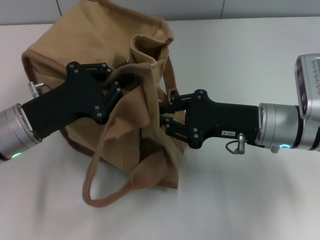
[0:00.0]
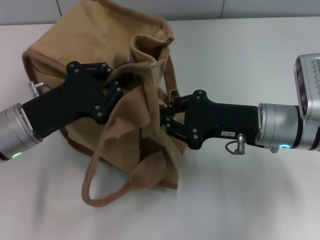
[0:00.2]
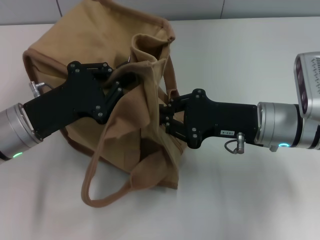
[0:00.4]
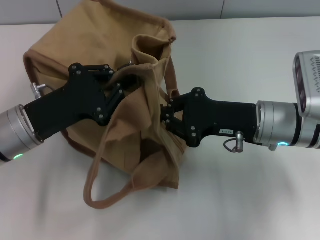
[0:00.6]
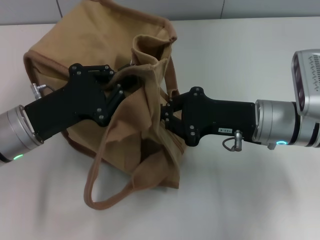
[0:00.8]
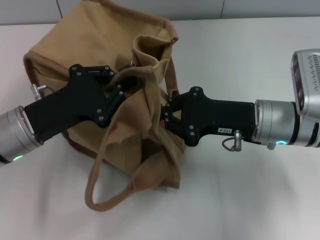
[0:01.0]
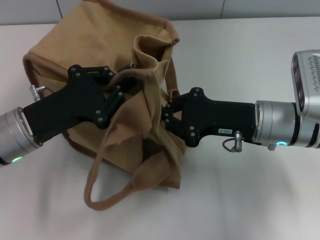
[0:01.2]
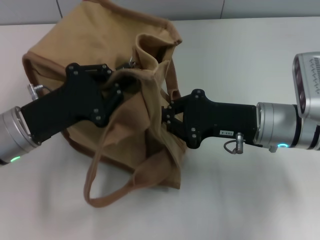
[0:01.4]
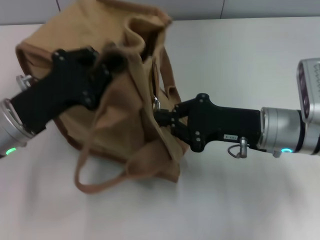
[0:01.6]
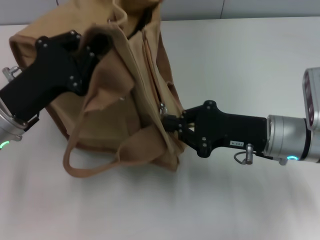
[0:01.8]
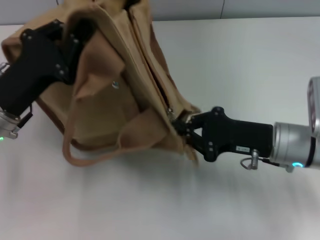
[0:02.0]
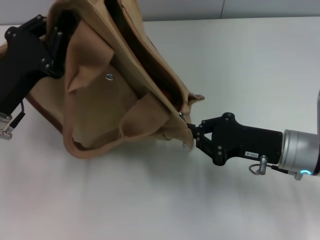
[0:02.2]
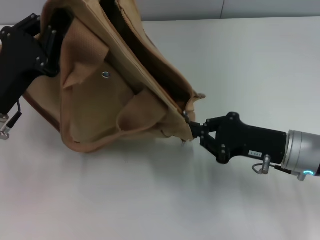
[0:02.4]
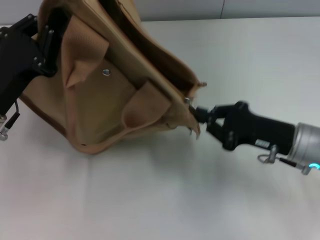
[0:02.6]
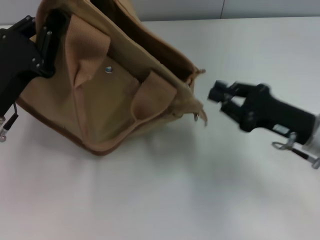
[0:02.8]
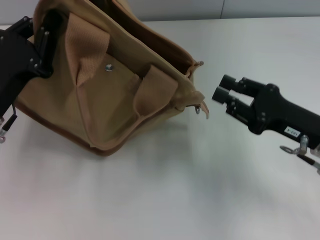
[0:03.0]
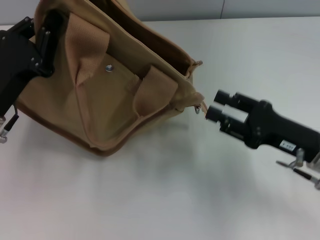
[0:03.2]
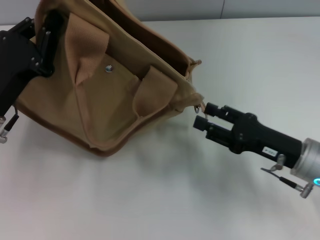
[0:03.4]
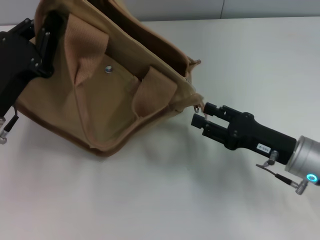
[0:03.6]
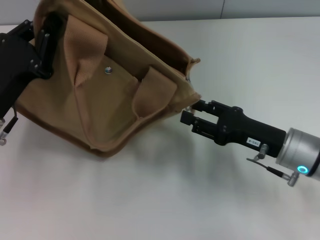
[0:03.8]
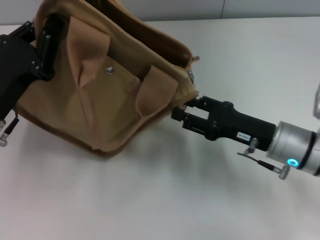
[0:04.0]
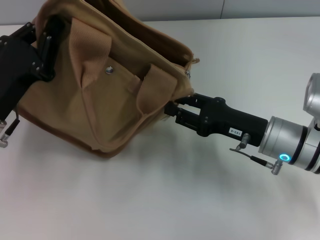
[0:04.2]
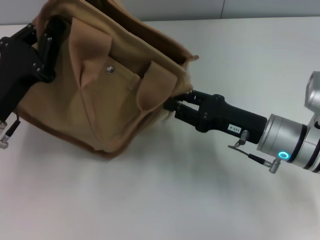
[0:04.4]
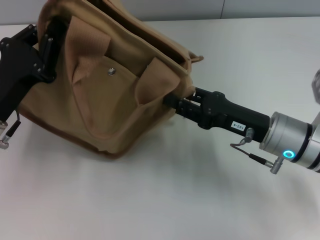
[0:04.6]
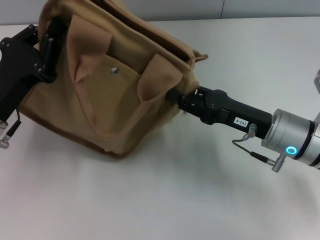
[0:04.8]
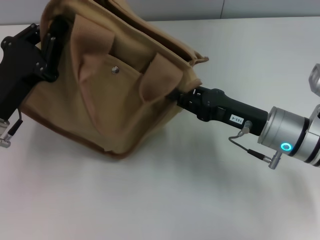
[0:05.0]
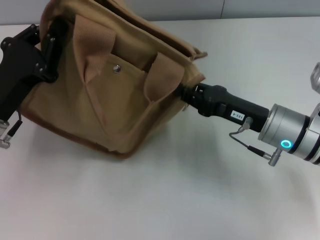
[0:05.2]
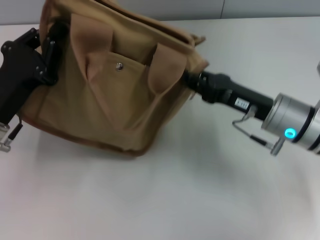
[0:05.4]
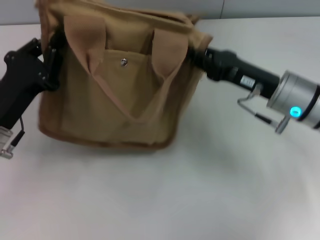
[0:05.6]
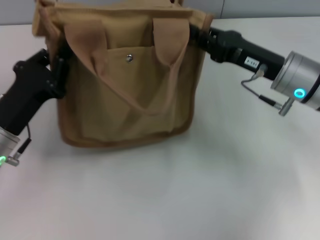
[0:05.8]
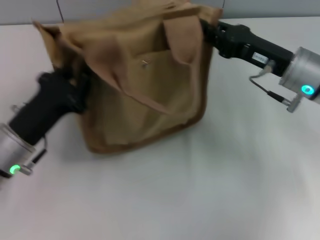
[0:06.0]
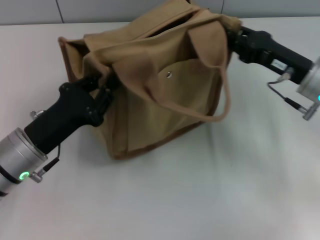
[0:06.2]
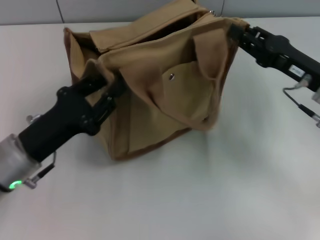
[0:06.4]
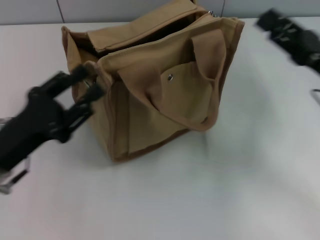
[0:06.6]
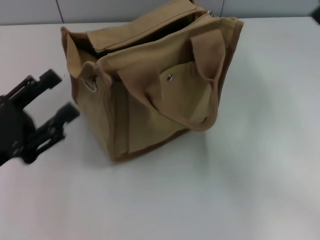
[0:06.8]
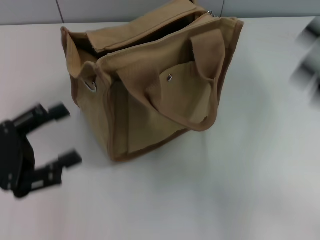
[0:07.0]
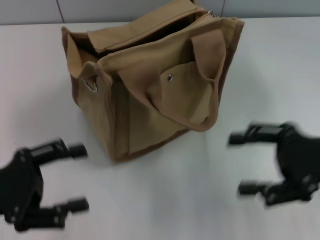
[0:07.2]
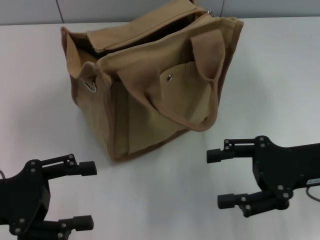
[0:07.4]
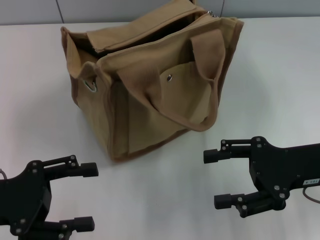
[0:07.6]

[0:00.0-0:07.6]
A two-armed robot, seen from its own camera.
Step, 0:00.0 to 0:02.8: Pull open the zipper with your right hand.
Step, 0:03.0 to 0:06.6: Grab the bag with your left hand.
0:01.6 to 0:03.0: The right gripper goes about 5 cm to the right.
0:03.0 to 0:04.6: The right gripper shifts roughly 5 cm to the left.
0:04.6 to 0:06.0: The right gripper is displaced forward by roughly 5 cm, and closes its fingers.
0:06.0 to 0:07.6: The left gripper moves to the left and backward, about 10 cm, and opens its fingers. Meanwhile the right gripper heads backward, covering approximately 10 cm, and opens.

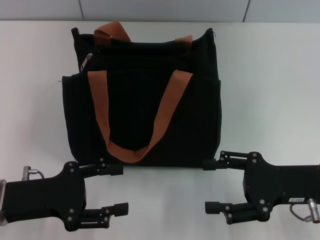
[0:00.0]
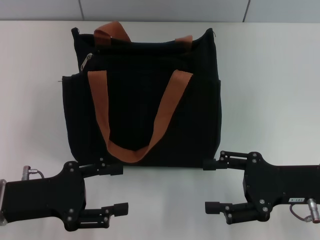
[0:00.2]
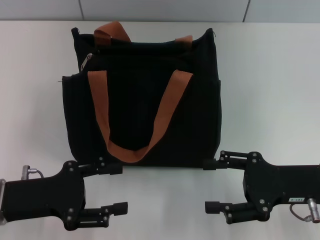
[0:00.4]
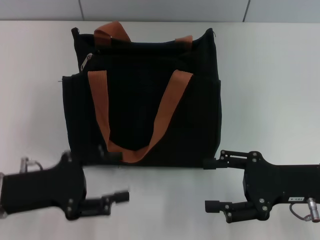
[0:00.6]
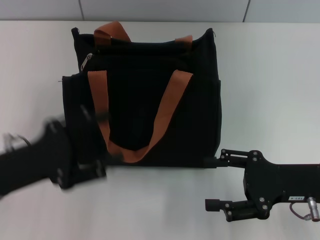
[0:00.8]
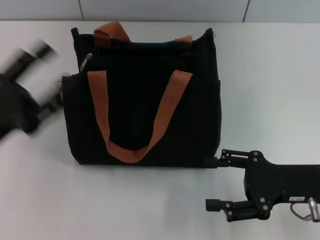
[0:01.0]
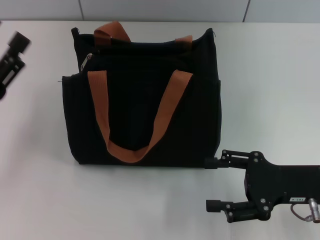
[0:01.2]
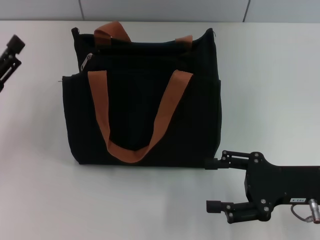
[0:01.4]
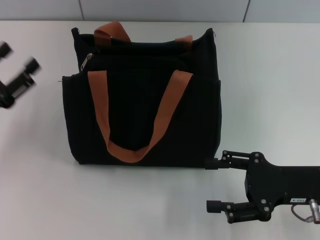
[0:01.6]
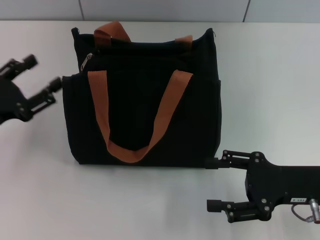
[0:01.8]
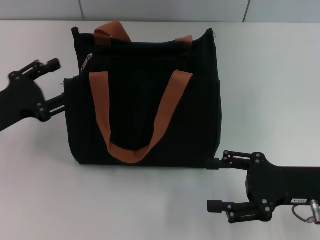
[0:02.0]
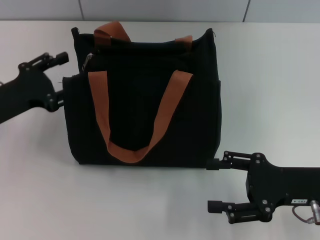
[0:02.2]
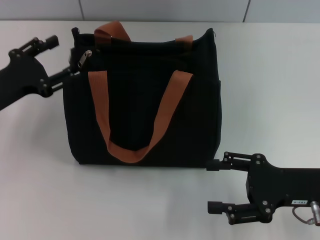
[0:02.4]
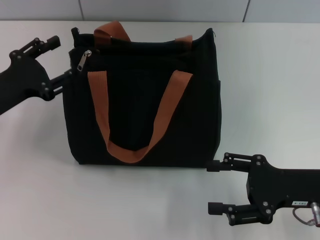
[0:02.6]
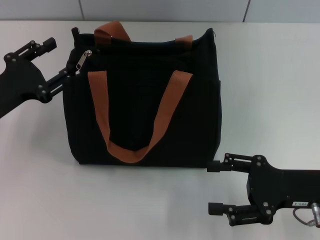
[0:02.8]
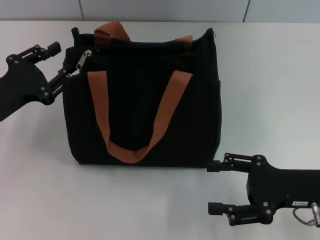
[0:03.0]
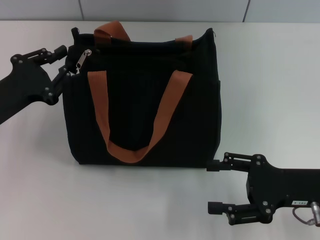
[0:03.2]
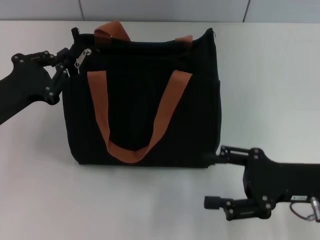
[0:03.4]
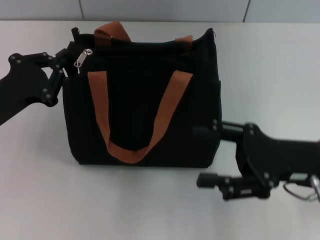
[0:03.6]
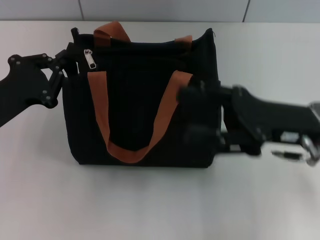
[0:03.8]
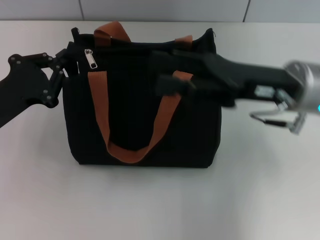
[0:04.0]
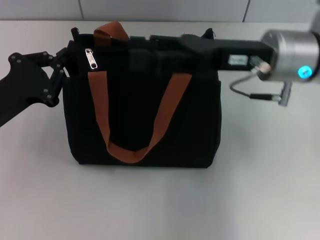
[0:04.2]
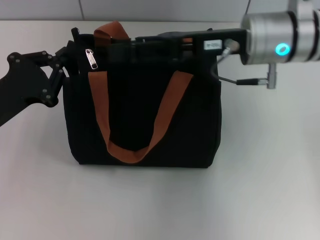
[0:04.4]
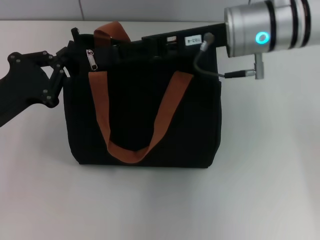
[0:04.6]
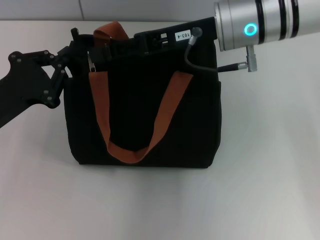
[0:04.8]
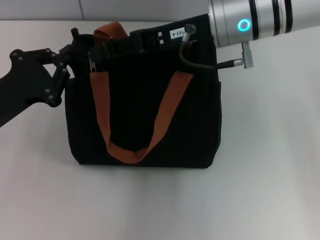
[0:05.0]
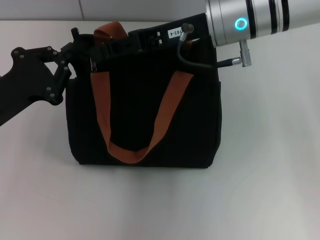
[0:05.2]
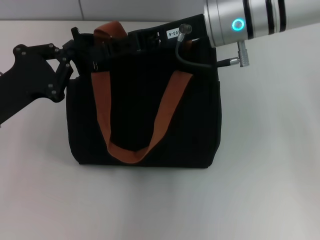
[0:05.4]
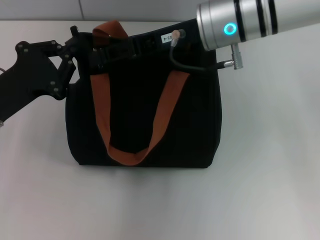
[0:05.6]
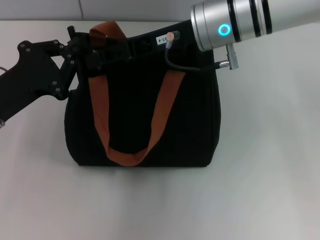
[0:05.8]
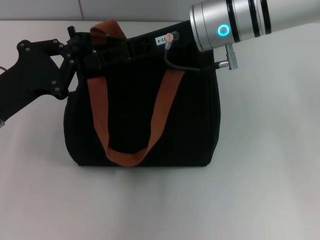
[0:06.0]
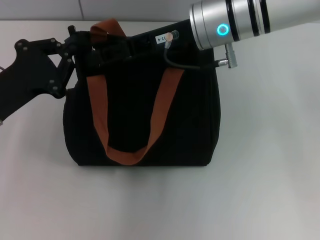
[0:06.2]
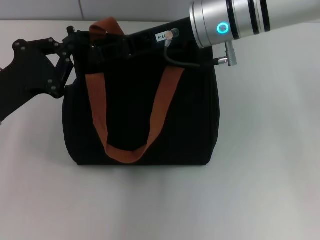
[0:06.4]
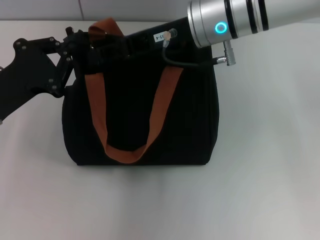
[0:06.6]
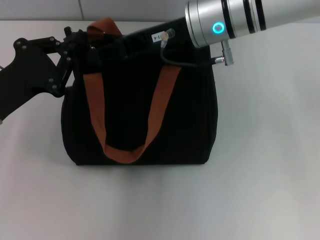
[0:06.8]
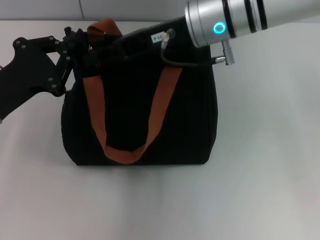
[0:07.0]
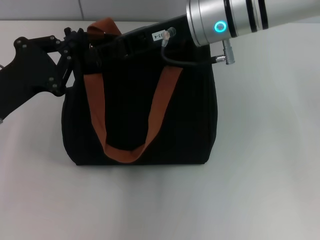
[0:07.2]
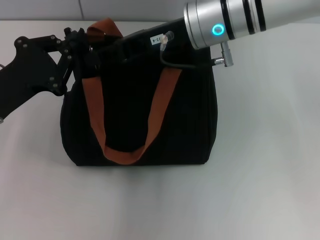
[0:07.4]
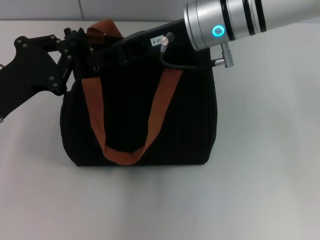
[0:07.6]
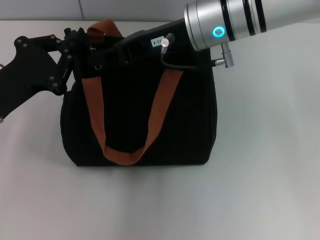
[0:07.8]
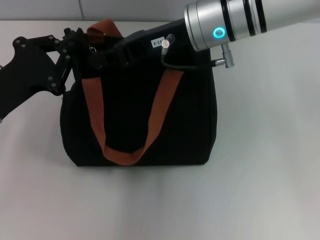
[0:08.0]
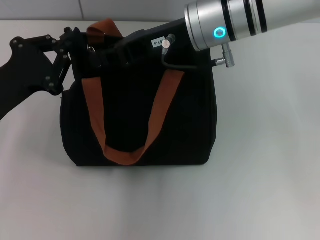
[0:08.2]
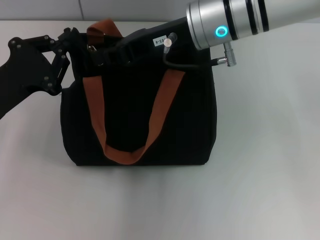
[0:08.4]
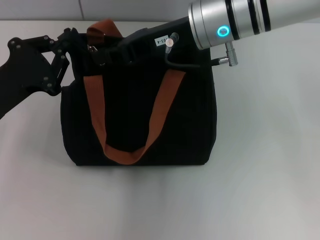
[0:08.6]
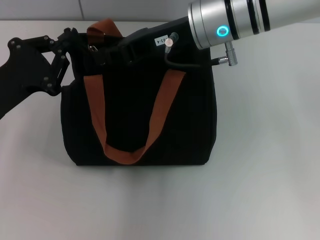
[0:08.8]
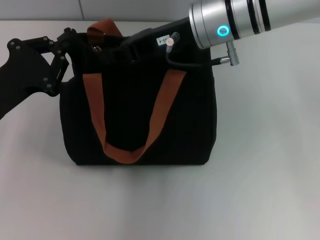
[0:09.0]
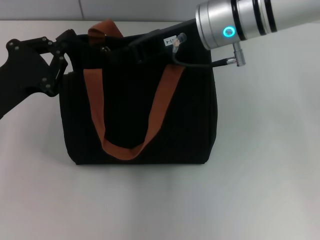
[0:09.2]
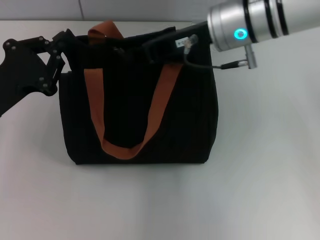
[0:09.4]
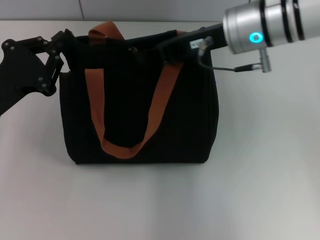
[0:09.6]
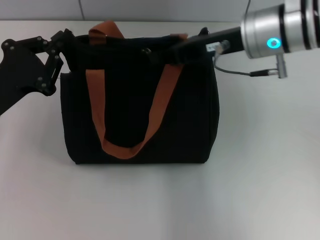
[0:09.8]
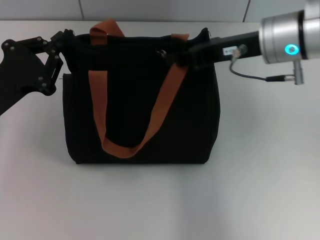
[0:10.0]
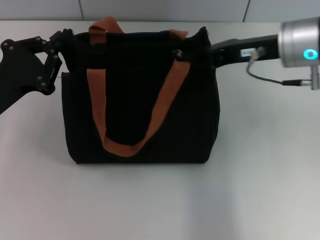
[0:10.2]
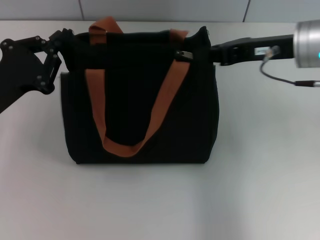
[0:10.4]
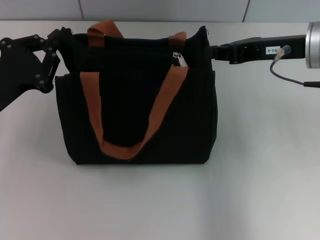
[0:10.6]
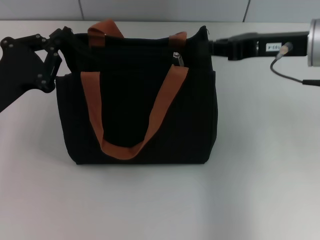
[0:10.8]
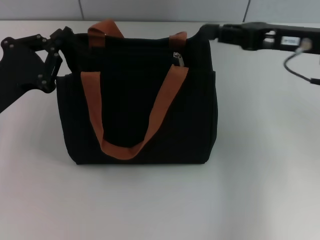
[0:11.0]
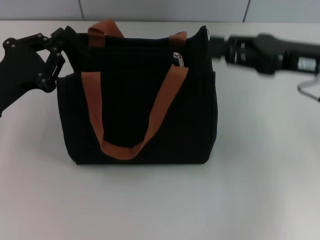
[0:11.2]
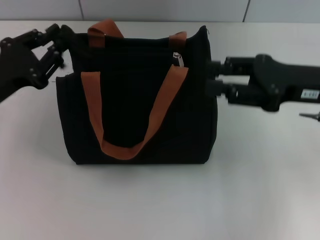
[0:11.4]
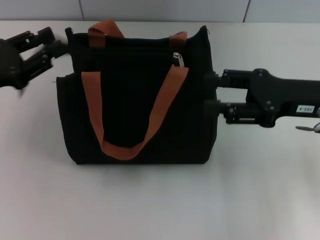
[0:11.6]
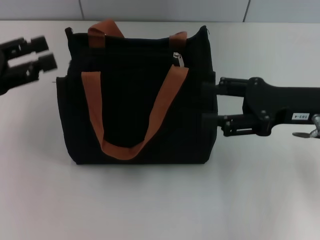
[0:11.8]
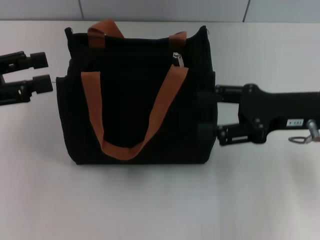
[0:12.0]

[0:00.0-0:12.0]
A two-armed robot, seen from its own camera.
Step, 0:00.0 to 0:10.4: Pull up the zipper with your right hand.
Step, 0:10.6 to 0:11.6: Grab the zipper with your left hand.
0:00.0 to 0:01.6: The left gripper heads to the left, covering some 5 cm.
0:03.0 to 0:04.4: The right gripper goes some 20 cm forward, upward and to the left. The left gripper closes its fingers.
0:04.4 to 0:06.0: The right gripper moves to the left, some 5 cm.
0:06.0 to 0:07.6: The grippers make only small movements.
0:07.6 to 0:09.0: Both grippers stay about where they are.
0:09.0 to 0:10.4: The right gripper moves to the right, some 15 cm.
0:10.4 to 0:12.0: The left gripper goes approximately 10 cm upward and to the left, and opens its fingers. Meanwhile the right gripper is displaced backward and downward by about 10 cm, and opens.

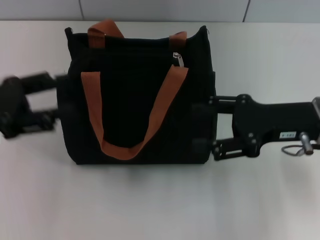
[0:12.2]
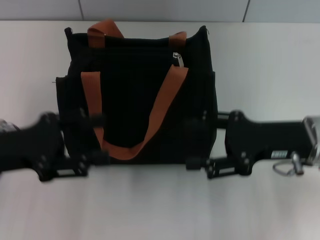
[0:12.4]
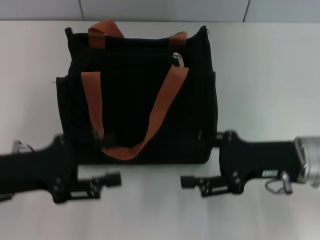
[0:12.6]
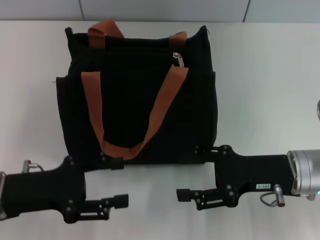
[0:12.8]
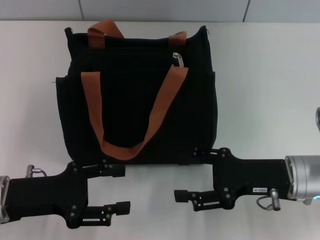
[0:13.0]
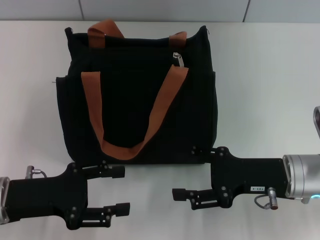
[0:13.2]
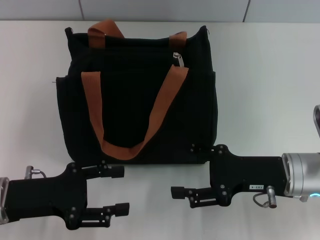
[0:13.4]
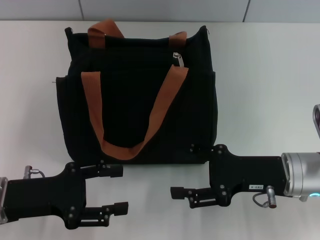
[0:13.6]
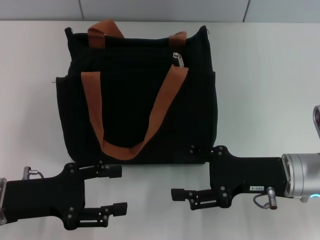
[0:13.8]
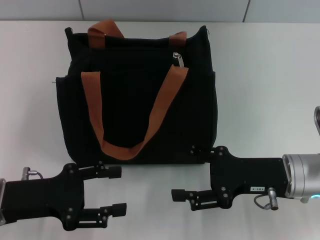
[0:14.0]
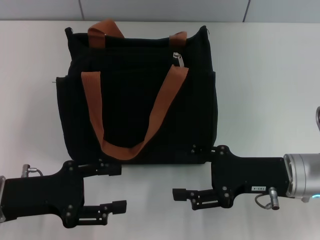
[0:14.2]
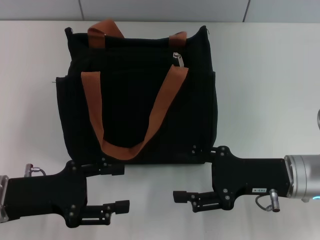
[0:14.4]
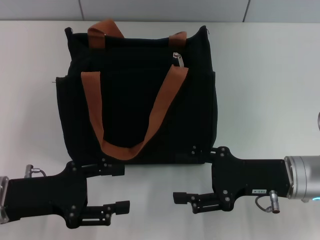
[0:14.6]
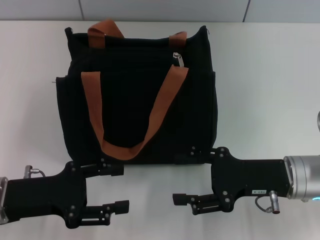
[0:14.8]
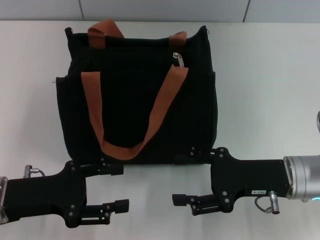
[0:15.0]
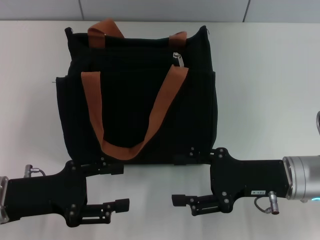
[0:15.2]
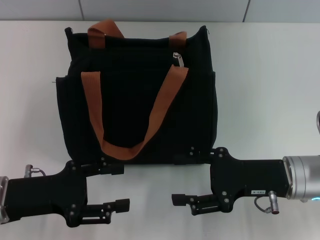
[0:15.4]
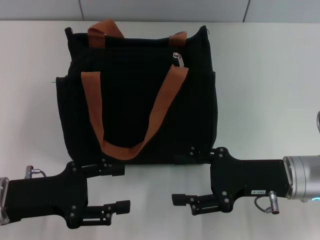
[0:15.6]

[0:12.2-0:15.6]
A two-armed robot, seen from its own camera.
0:12.2 to 0:13.8: The grippers both shift downward by roughly 10 cm.
0:13.8 to 0:15.6: Neither gripper changes place.
